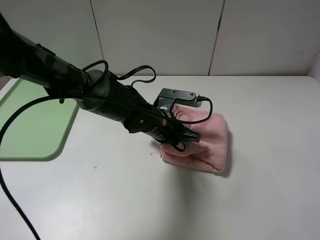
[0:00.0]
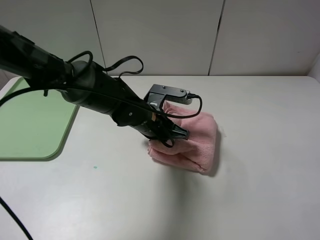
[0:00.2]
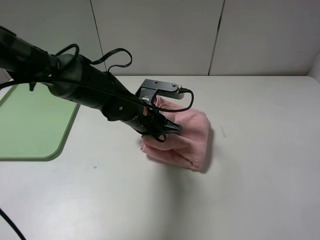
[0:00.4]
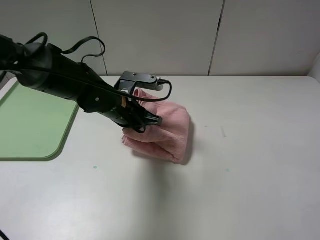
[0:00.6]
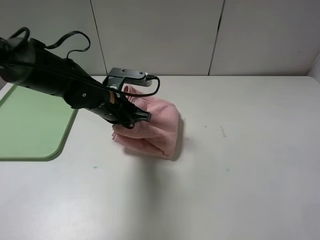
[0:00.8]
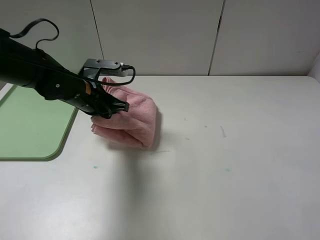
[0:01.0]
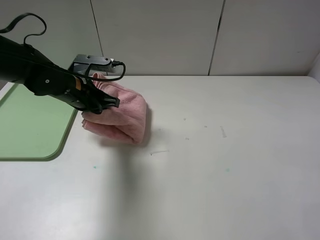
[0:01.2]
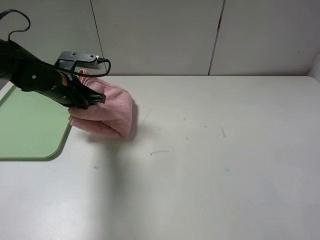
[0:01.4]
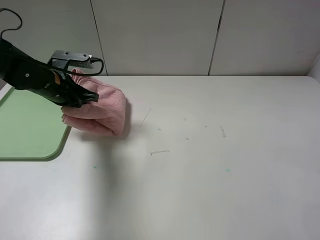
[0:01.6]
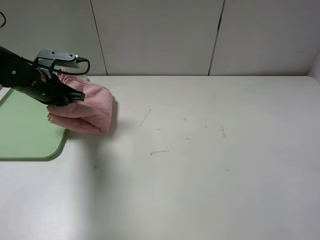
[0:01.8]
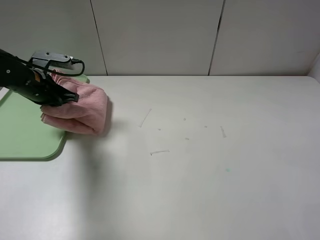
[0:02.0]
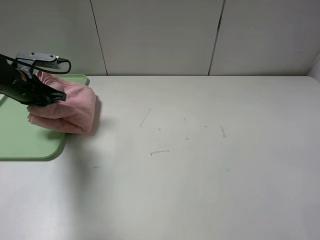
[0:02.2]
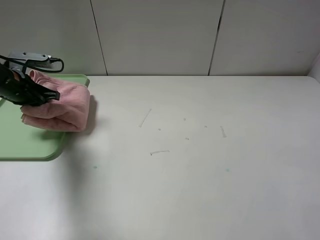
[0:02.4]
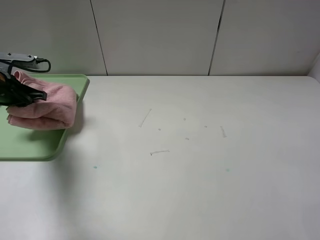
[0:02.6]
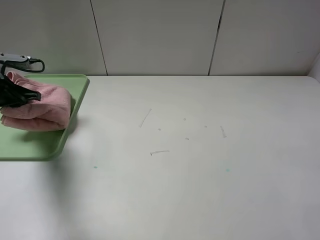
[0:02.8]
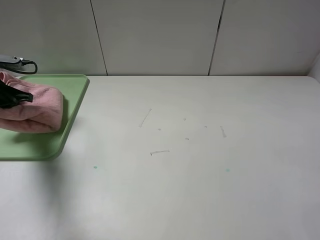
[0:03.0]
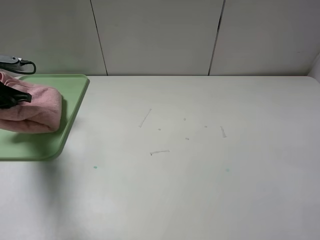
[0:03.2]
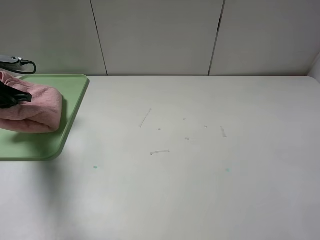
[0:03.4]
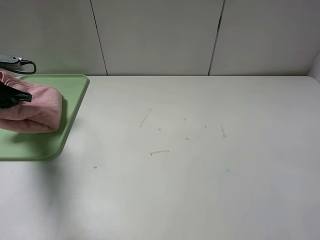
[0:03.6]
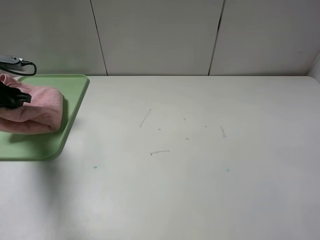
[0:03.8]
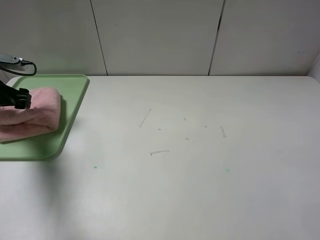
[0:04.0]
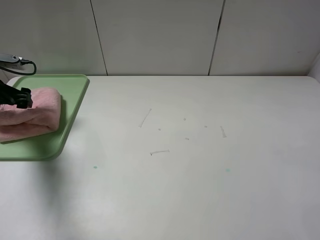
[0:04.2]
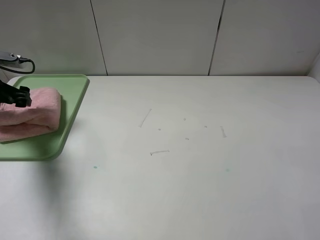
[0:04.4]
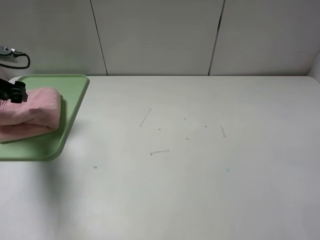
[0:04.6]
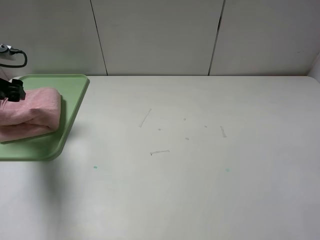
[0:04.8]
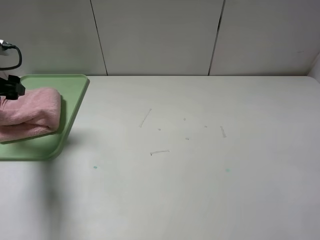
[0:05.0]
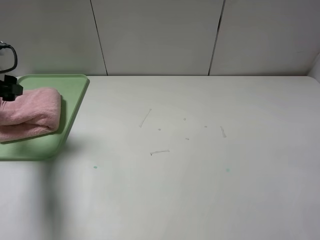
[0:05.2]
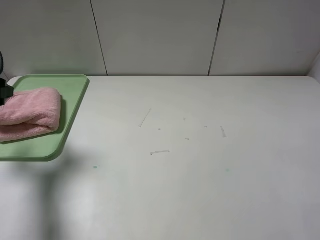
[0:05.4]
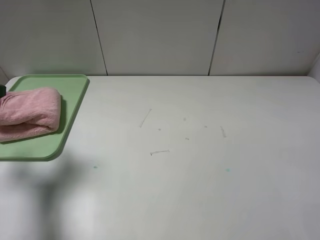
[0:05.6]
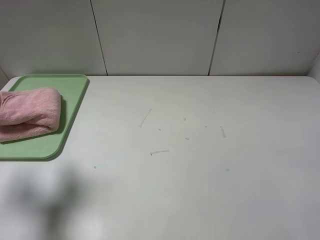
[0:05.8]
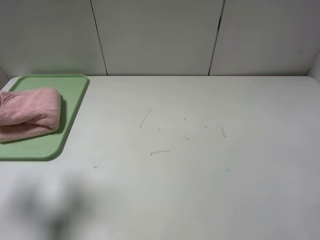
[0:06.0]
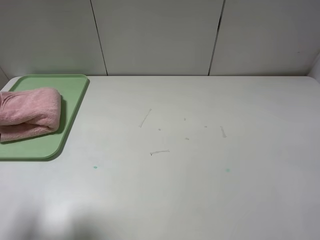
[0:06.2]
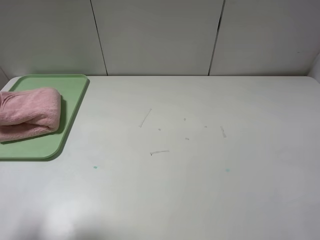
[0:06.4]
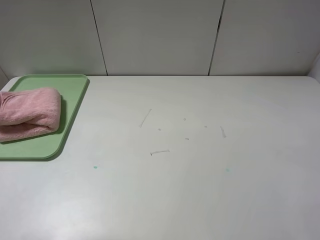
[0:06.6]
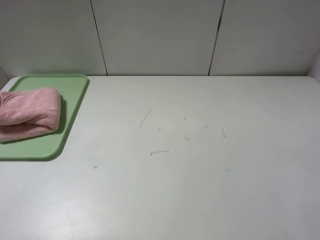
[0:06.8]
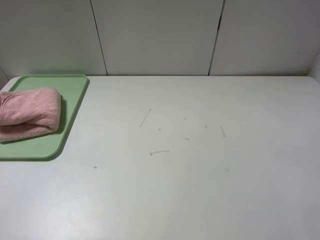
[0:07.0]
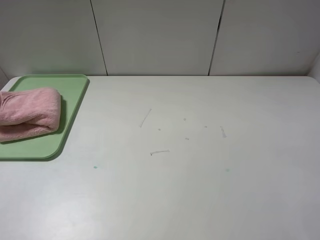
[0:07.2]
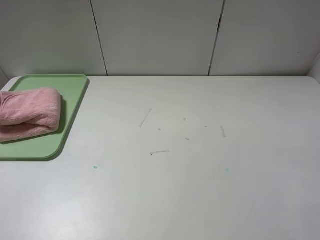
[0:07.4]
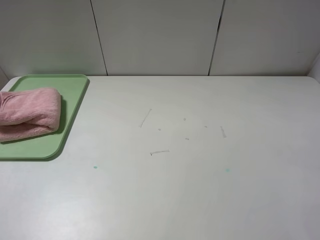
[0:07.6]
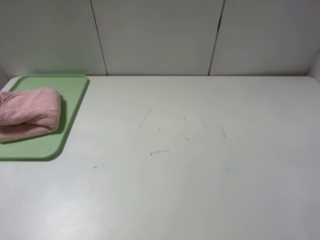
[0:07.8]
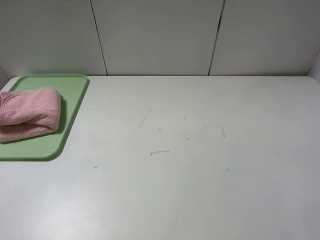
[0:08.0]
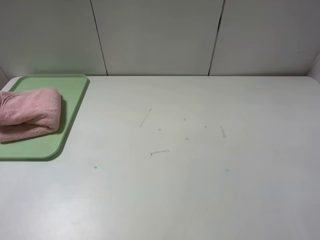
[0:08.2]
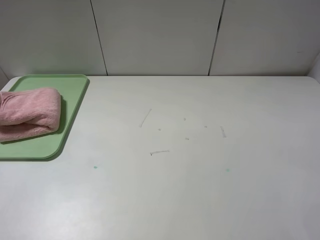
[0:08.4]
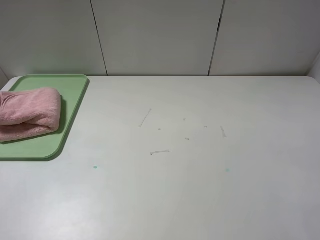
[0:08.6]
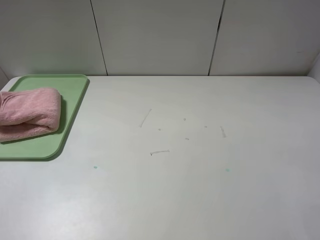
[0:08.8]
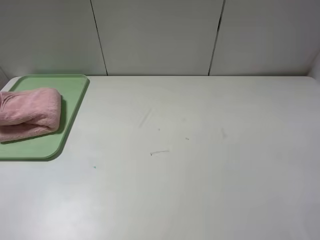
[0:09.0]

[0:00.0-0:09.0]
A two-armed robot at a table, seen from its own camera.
Step, 0:00.0 to 0:04.4: Place the folded pink towel on the tray with the left gripper.
0:00.0 to 0:01.6: The left gripper is displaced to the left by some 25 cm.
0:01.6 to 0:03.0: The left gripper moves to the left, approximately 15 cm.
0:03.0 to 0:04.4: The left gripper opens.
0:04.4 to 0:06.0: The left gripper travels backward and upward by roughly 20 cm.
0:06.0 to 0:07.6: The left gripper goes about 15 cm backward.
